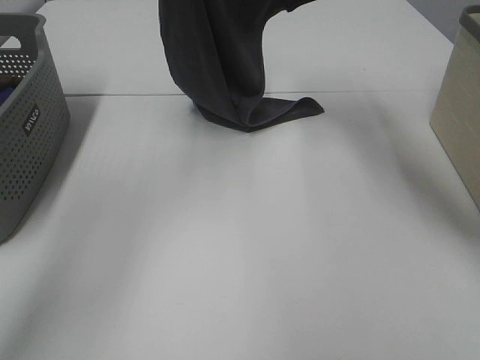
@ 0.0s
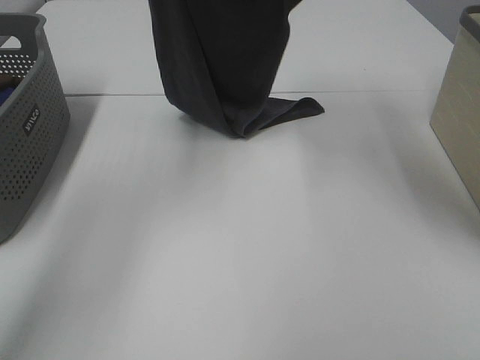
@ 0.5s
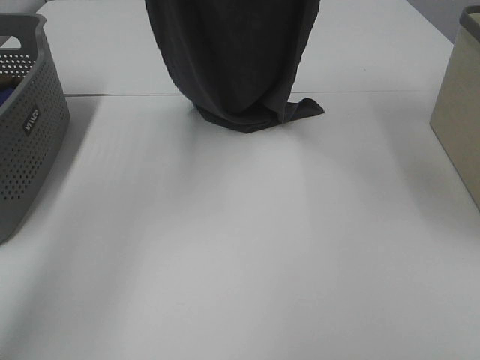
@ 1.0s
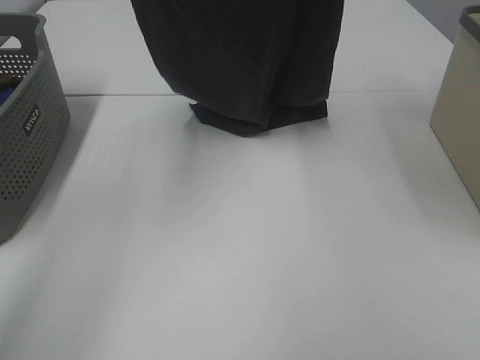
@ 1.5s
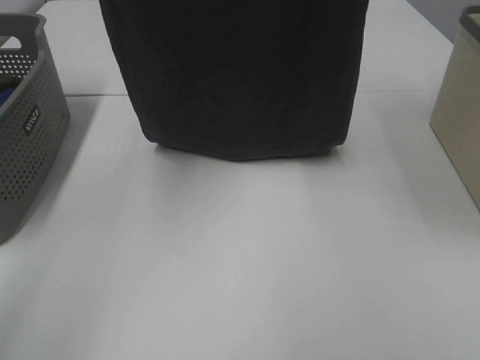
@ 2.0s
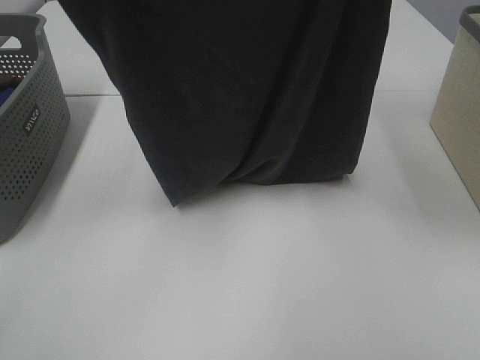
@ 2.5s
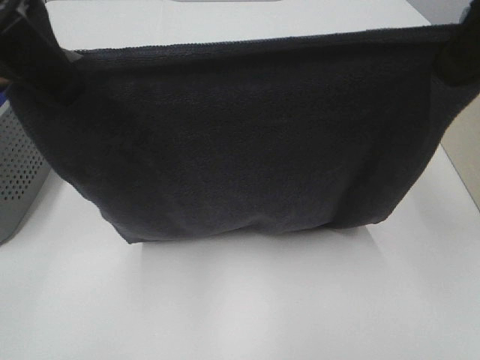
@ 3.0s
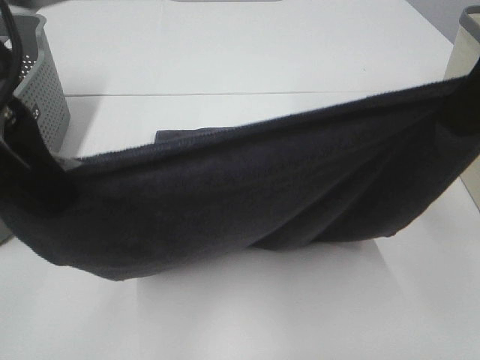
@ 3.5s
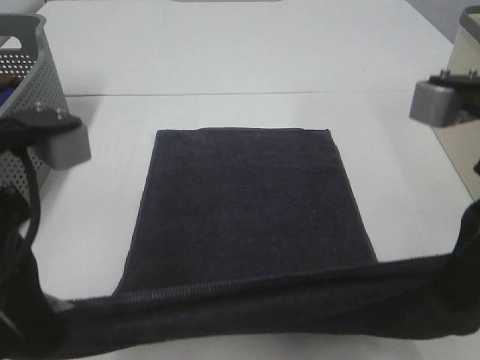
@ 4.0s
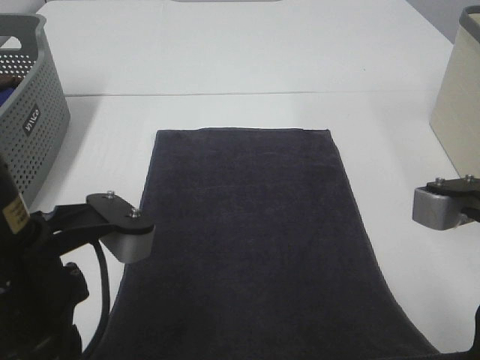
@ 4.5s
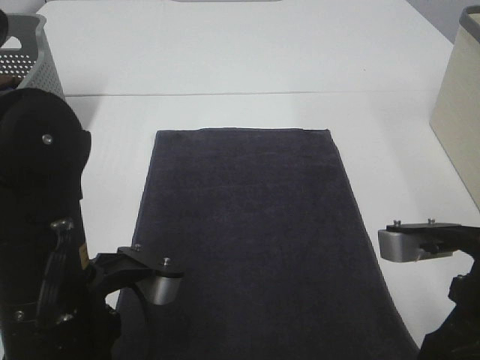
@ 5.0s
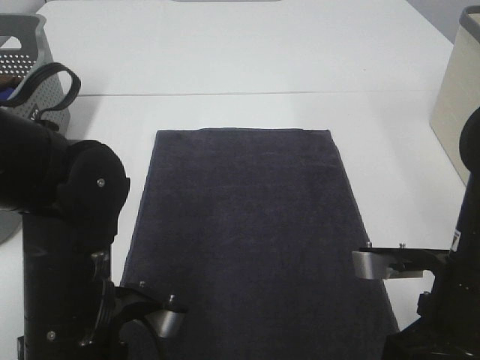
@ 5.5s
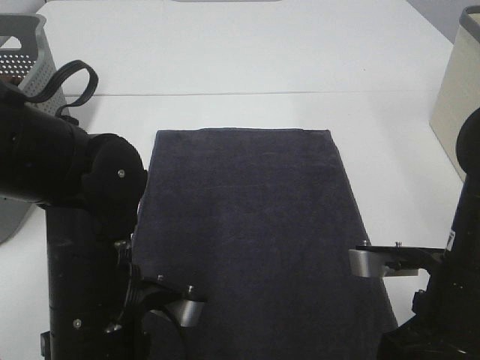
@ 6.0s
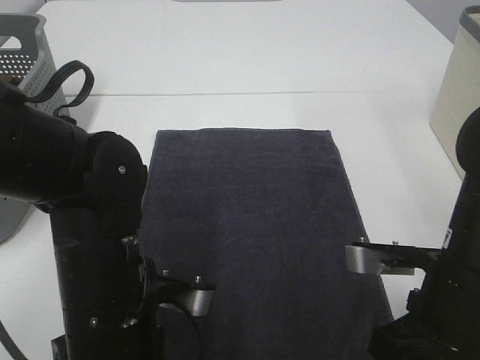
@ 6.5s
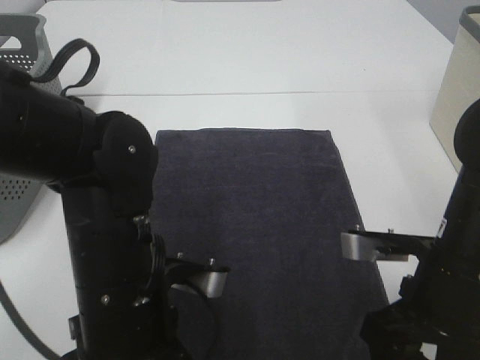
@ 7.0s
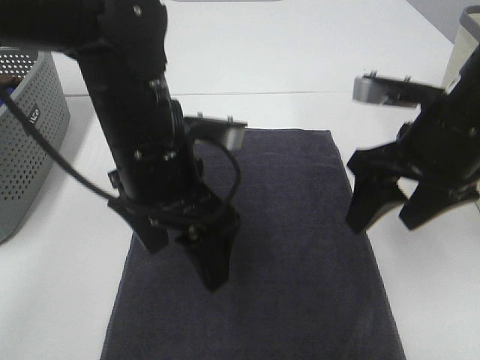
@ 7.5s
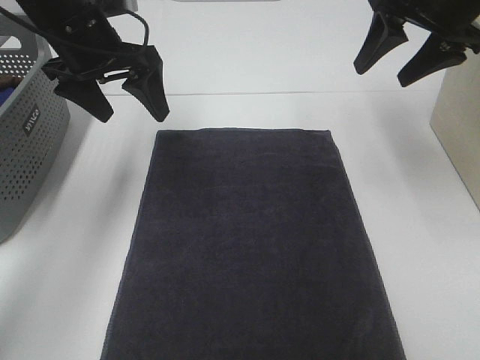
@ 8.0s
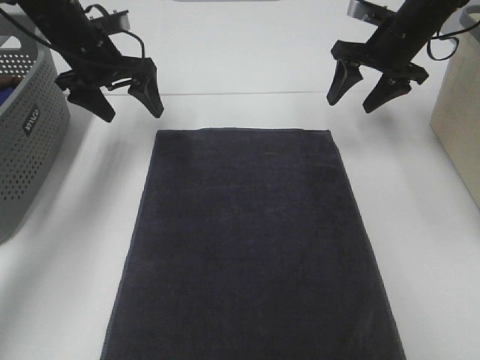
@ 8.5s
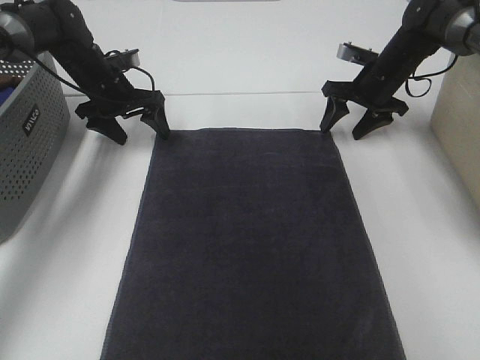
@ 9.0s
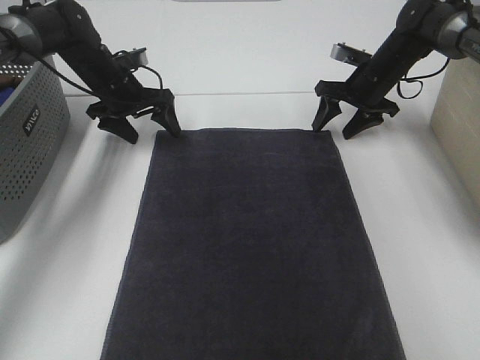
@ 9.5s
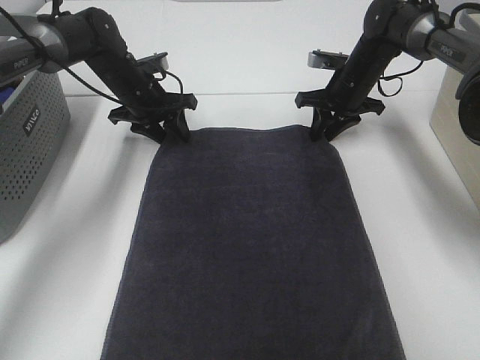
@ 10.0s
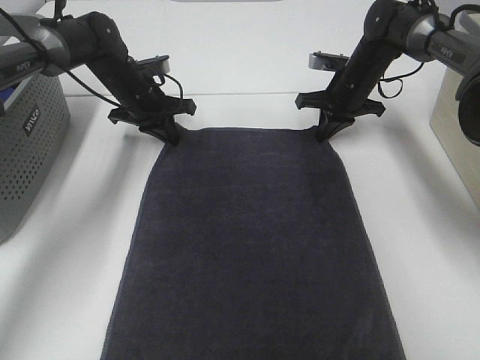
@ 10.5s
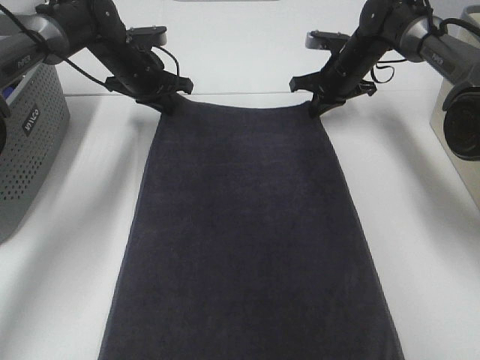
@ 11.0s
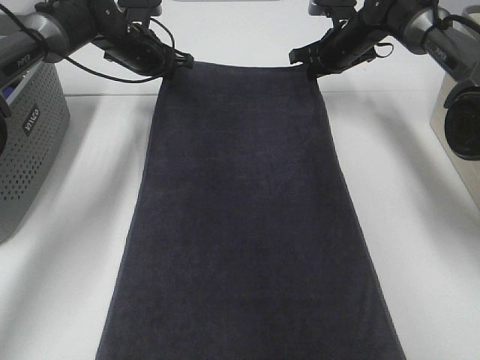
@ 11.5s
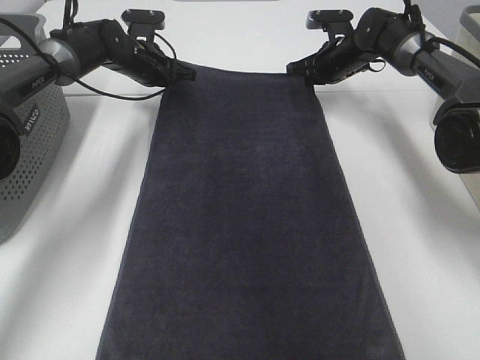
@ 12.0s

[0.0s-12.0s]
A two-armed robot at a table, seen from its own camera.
Task of the whole recording: Remove the towel and place it.
Step, 0.0s to 2.0s: Left hand: spread the grey towel flat on the table.
Step, 0.0s to 2.0s: Right hand: spread the grey towel flat on the table.
Step, 2.5s to 7.0s: Left hand:adjust the gray towel.
Step, 2.5s to 7.0s: Right hand:adjust the gray towel.
0.0s to 2.0s: The right gripper shifts about 25 cm upward and backward. Meanwhile the left gripper shifts roughly 15 cm backward and upward.
2.0s to 4.0s: The grippers both shift downward and backward by about 30 cm.
4.0s to 6.0s: The right gripper moves downward, some 15 cm, while the left gripper moves downward and to the right, some 15 cm.
6.0s to 8.0s: The two grippers go about 30 cm forward and upward. The left gripper opens; the right gripper opens its fingers.
8.0s to 10.0s: Both grippers travel together downward and forward, about 20 cm. The right gripper closes. The left gripper closes.
10.0s to 12.0s: The grippers both shift forward by some 5 cm. The left gripper closes. Meanwhile the right gripper closes up.

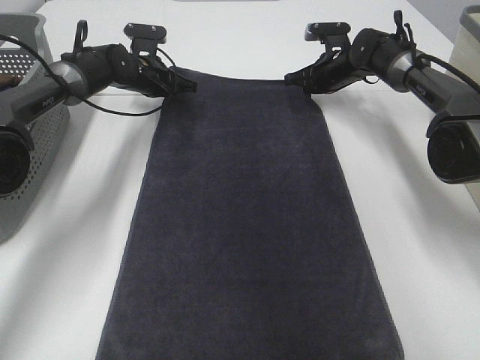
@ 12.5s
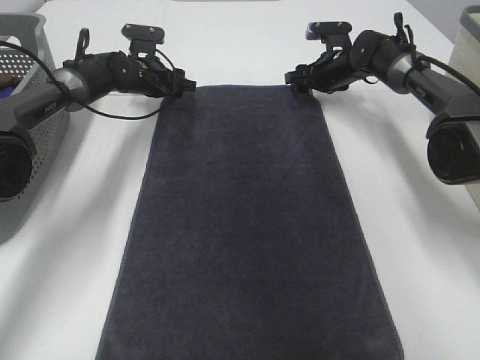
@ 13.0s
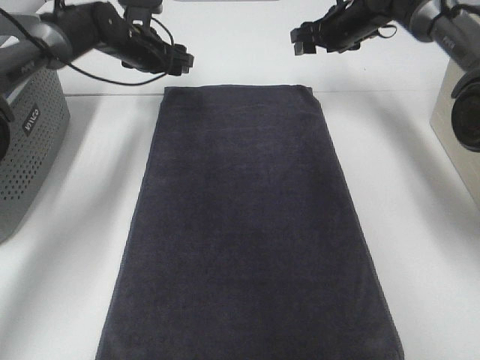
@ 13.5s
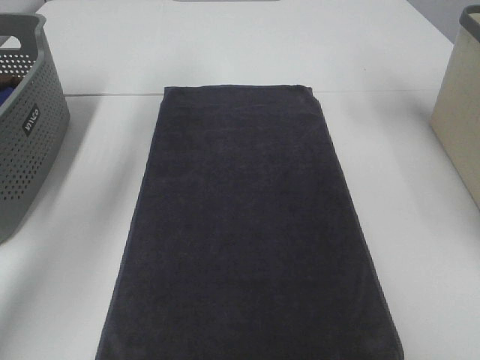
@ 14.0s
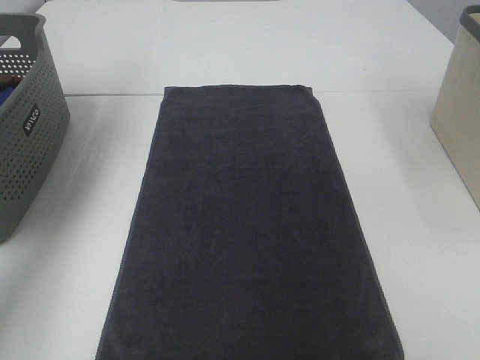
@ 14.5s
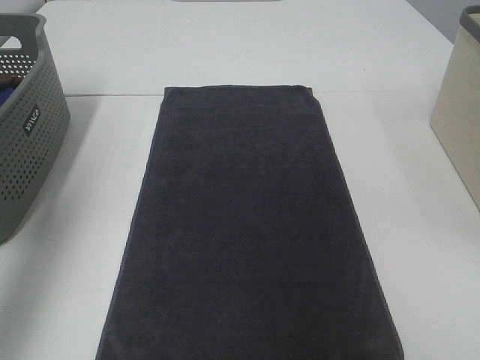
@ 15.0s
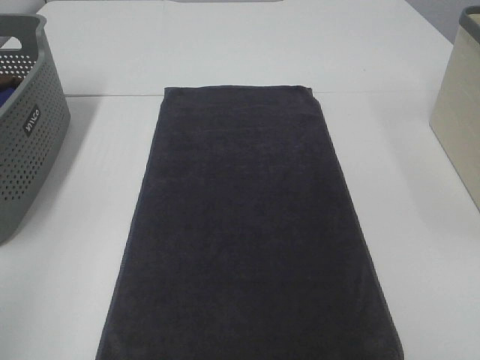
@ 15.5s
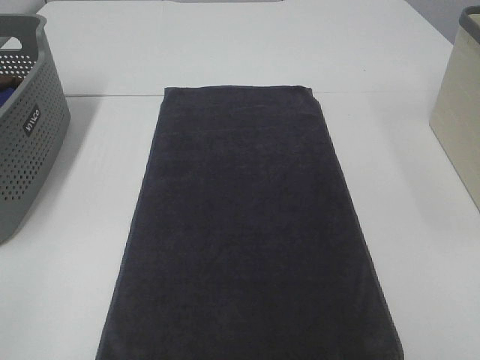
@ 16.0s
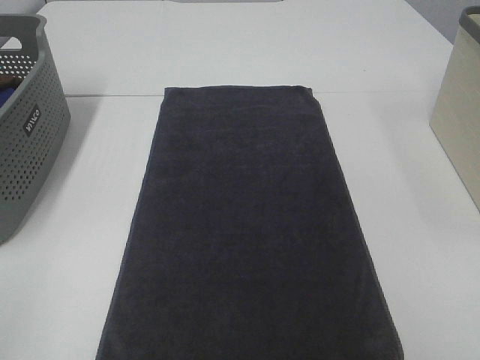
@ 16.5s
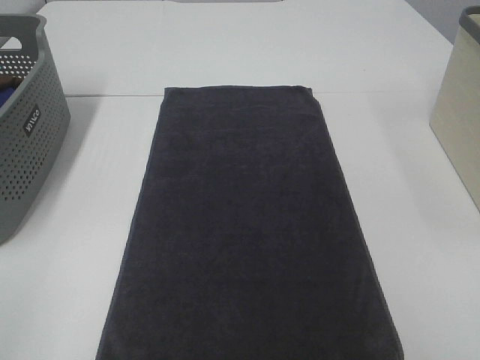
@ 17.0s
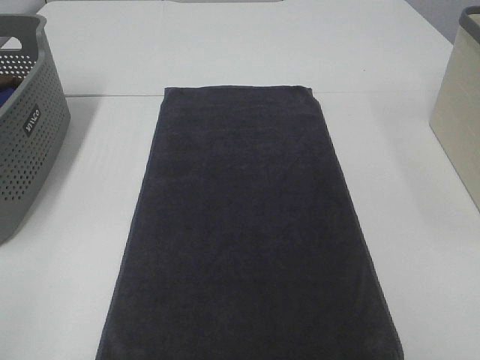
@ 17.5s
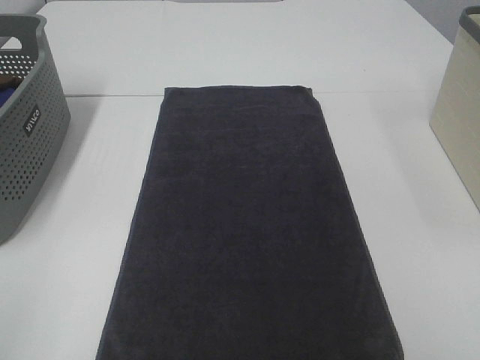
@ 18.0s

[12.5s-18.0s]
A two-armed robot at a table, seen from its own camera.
Task of the whole recording: Remove the towel and place it.
12.5s to 14.5s: The right gripper travels upward and backward by roughly 40 cm, and opens its fingers. Meanwhile the left gripper heads upward, backward and to the left, covering roughly 35 cm, and opens.
14.5s to 16.0s: The left gripper moves backward, approximately 50 cm.

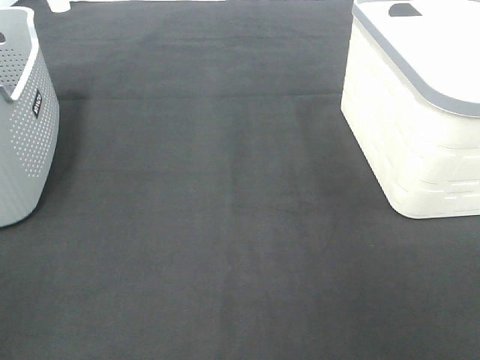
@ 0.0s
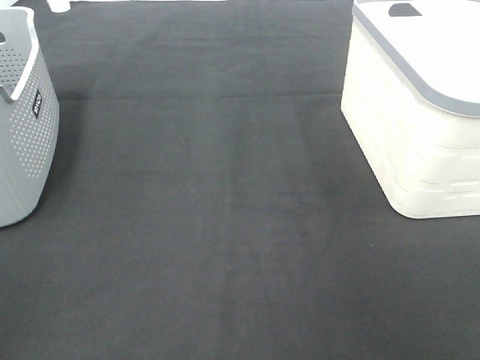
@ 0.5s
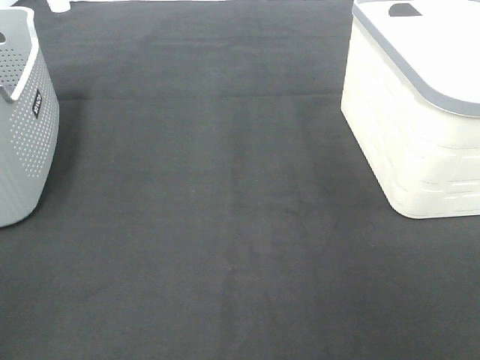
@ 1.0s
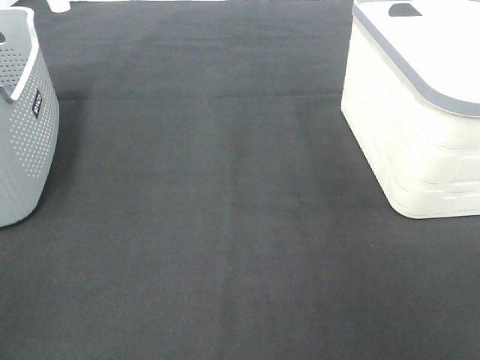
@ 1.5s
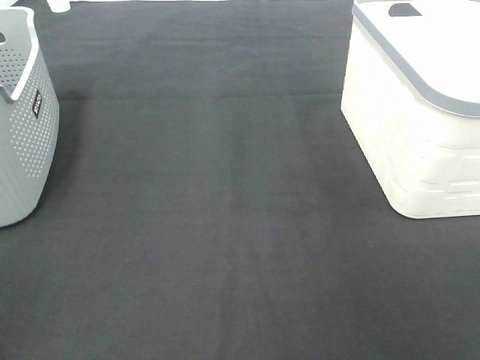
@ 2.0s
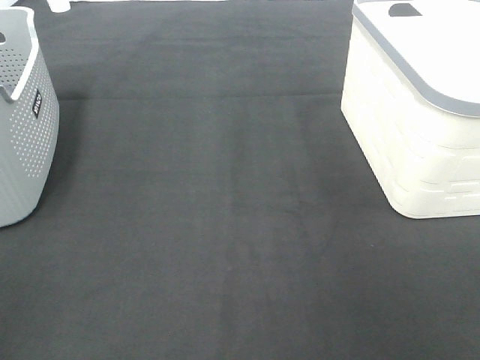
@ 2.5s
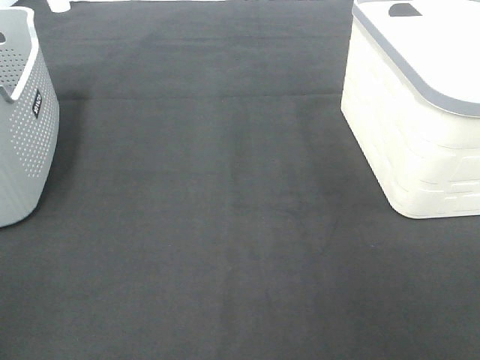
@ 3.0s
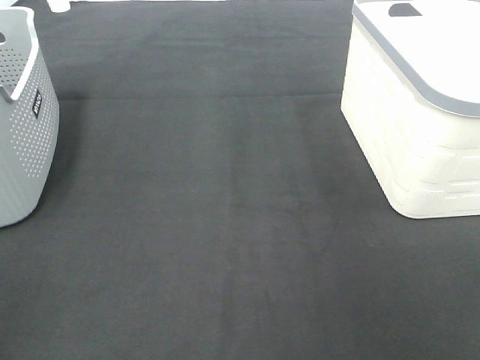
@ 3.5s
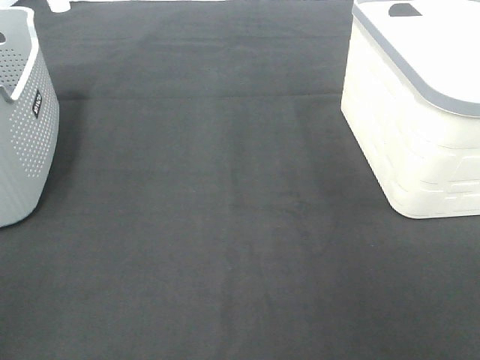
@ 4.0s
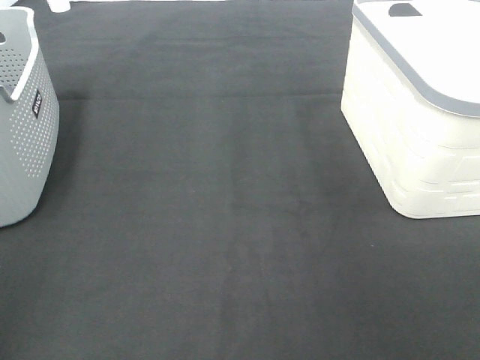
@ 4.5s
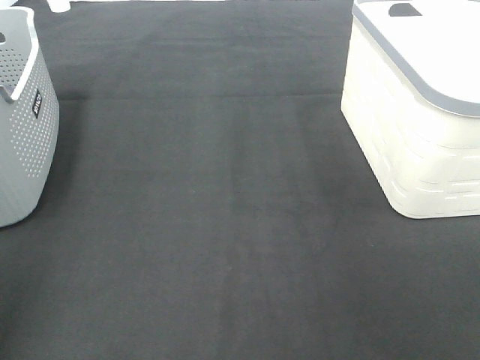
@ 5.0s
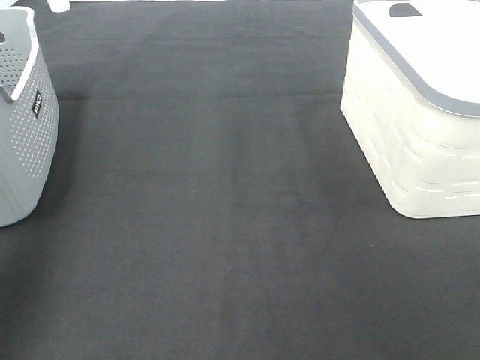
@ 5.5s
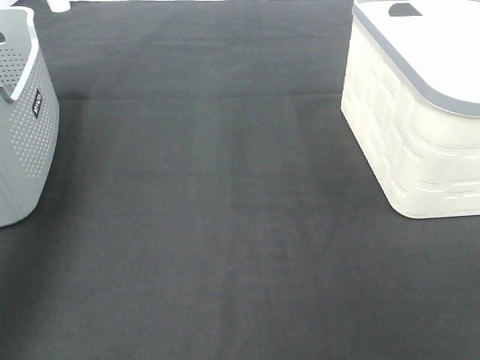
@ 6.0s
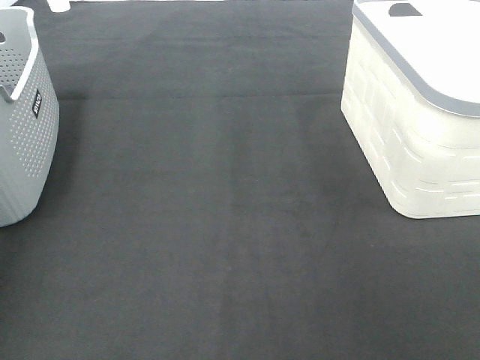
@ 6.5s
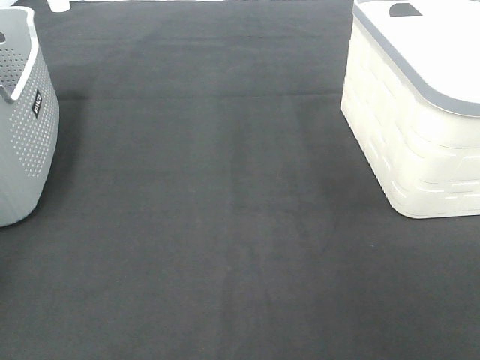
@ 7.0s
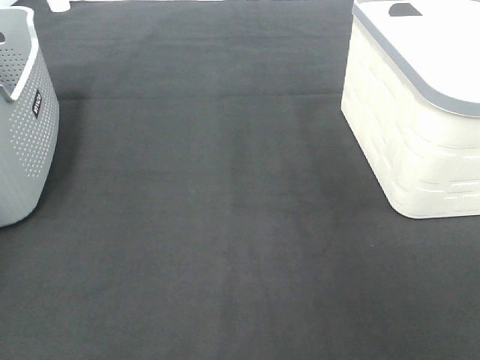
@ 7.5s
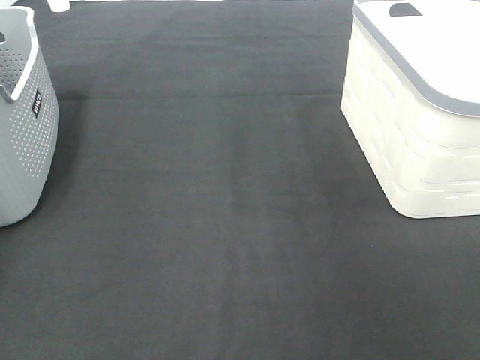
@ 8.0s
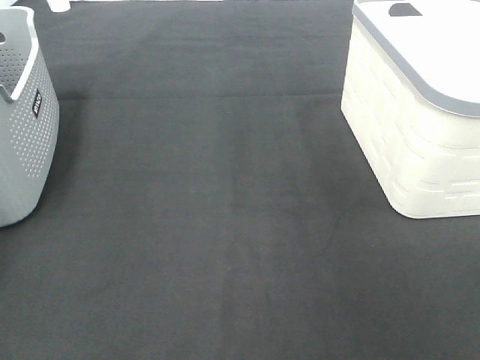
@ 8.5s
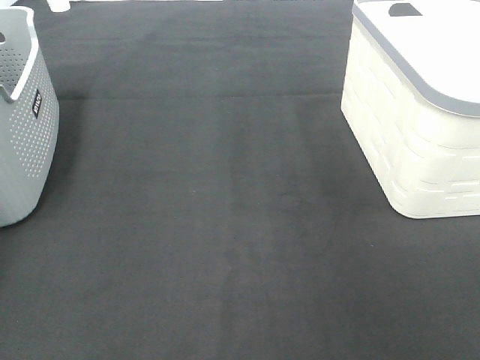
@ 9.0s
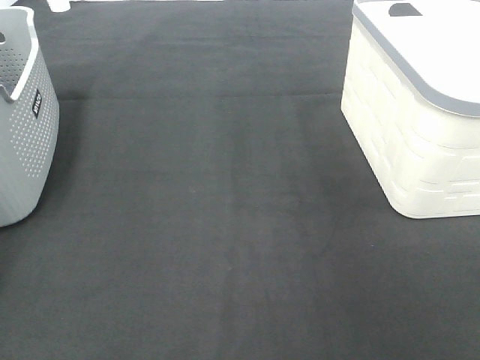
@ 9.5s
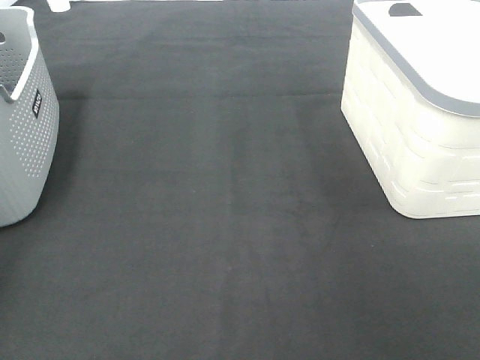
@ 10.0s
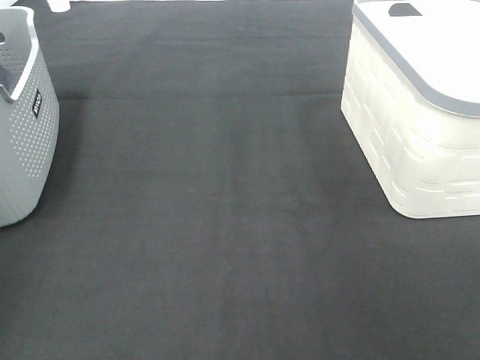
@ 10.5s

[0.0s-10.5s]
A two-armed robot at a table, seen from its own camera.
Task of the whole recording: Remove the towel and place it.
0.0s to 2.0s: Neither gripper changes place.
4.0s to 6.5s: The left gripper shifts approximately 40 cm forward.
